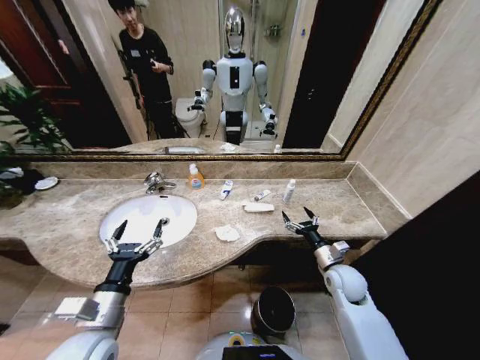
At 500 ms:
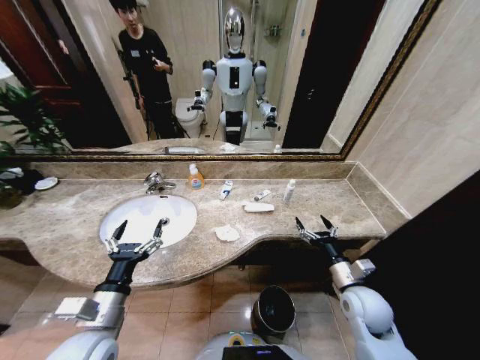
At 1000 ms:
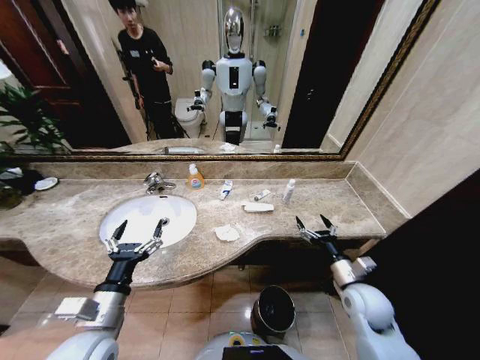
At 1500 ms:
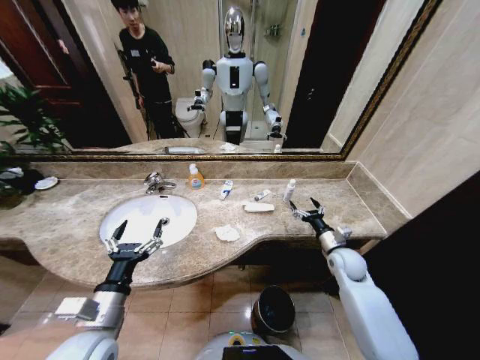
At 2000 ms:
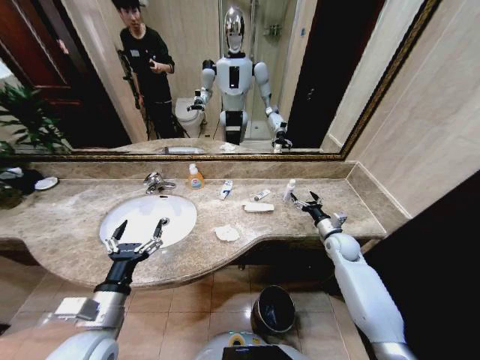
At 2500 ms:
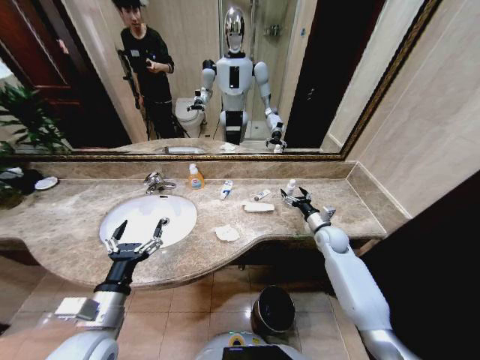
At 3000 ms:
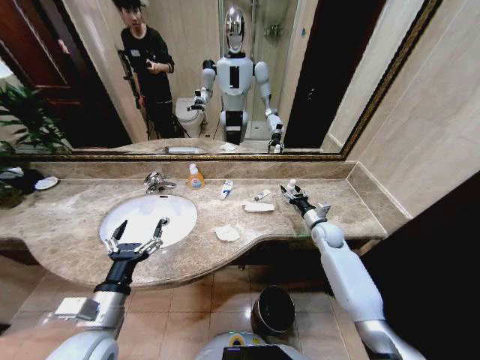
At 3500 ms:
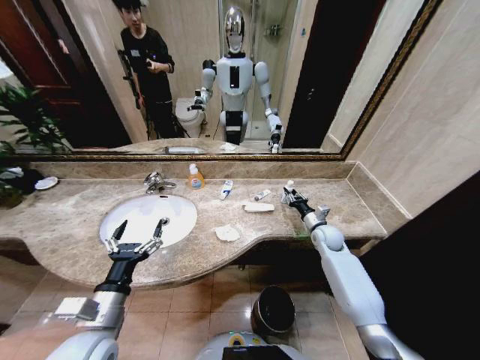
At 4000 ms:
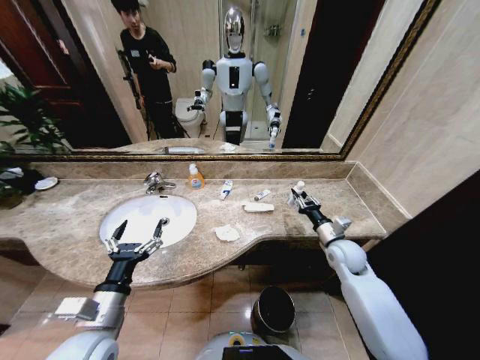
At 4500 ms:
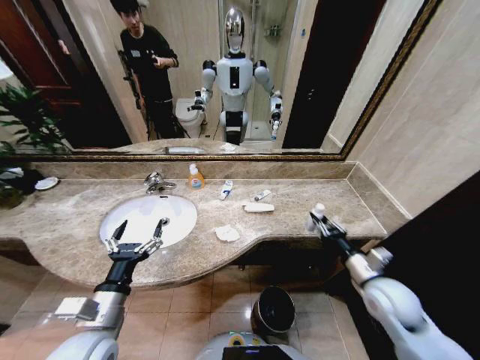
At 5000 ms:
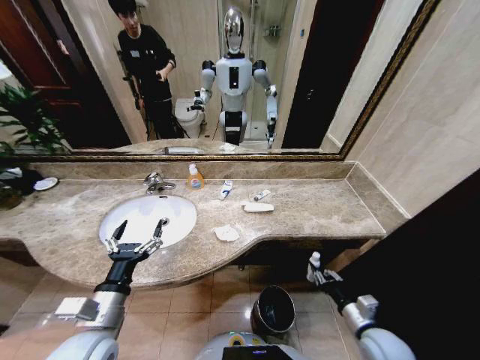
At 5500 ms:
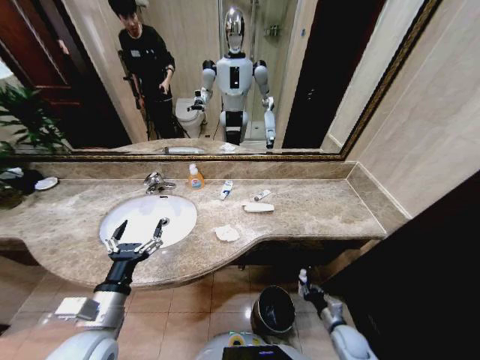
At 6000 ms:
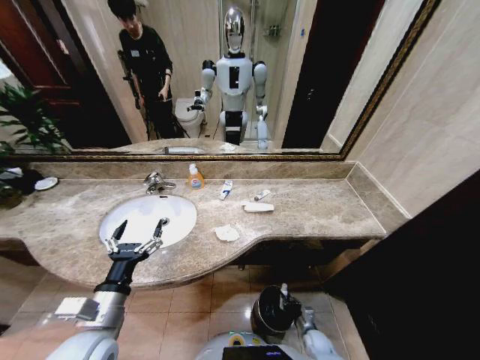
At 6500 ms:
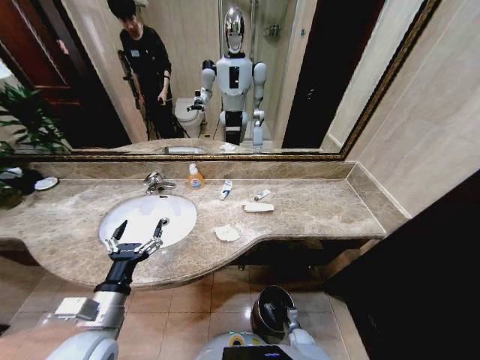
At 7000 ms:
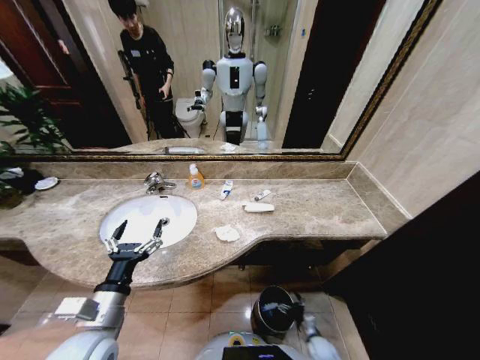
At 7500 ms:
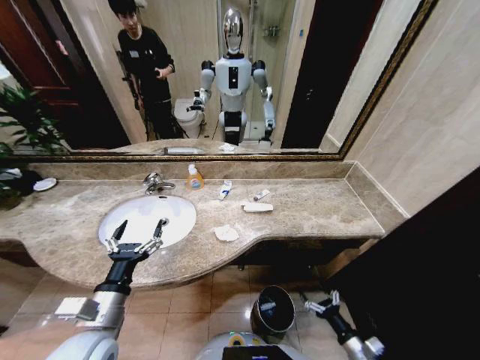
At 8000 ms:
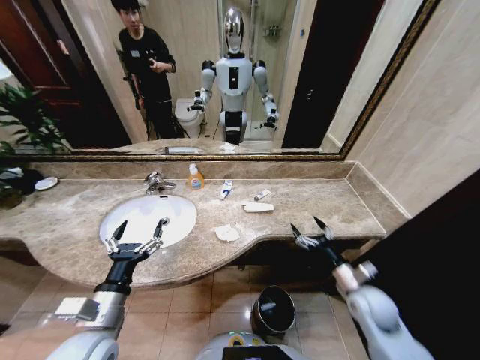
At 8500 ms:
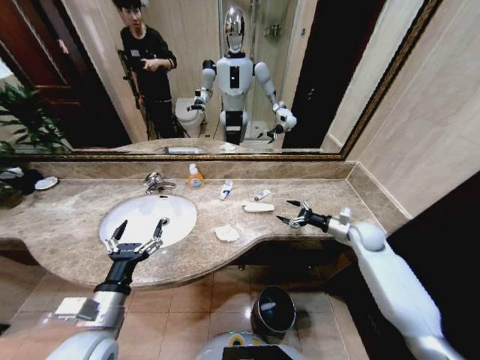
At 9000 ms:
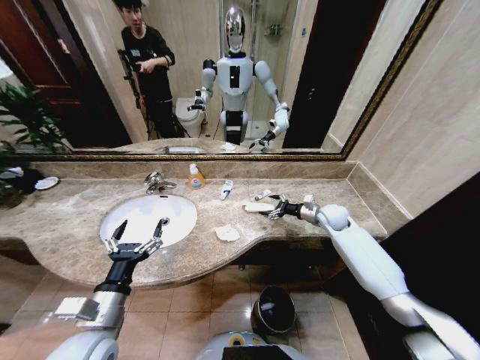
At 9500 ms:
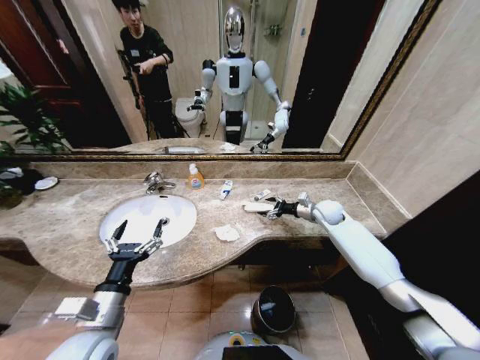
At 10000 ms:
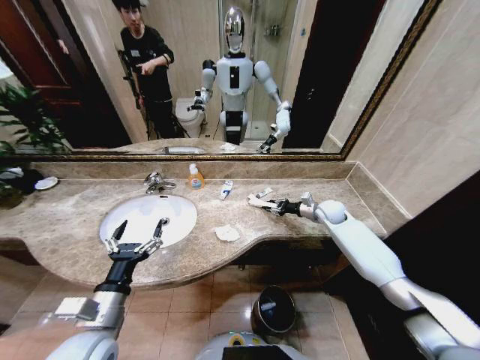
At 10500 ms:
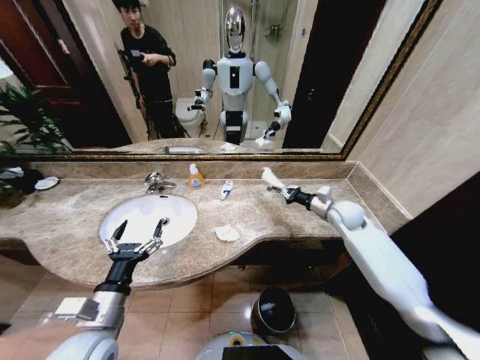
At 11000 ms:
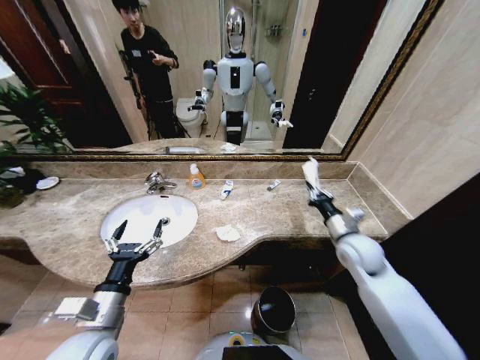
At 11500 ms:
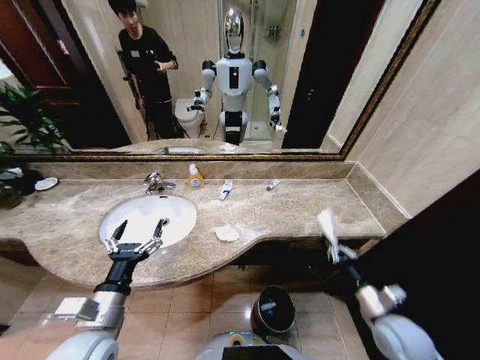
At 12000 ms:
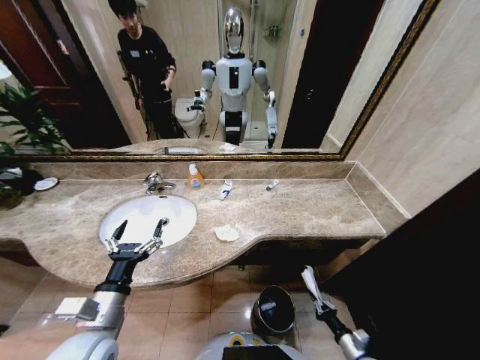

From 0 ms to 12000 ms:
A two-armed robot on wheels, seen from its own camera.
Task of the whole recording: Pick up the trash from the sink and place it in the trash bin.
From 2000 ms to 4000 ms: The right gripper moves some 10 cm, and closes up.
From 4000 ms to 6000 ms: The right gripper travels downward and backward by about 40 cm.
From 6000 ms to 8000 ms: The right gripper shifts about 35 cm upward, and opens.
From 8000 ms to 10000 ms: The right gripper heads forward, covering approximately 30 cm, and closes up.
From 10000 ms to 12000 ms: The right gripper goes roughly 50 cm backward and downward, and closes its fingers.

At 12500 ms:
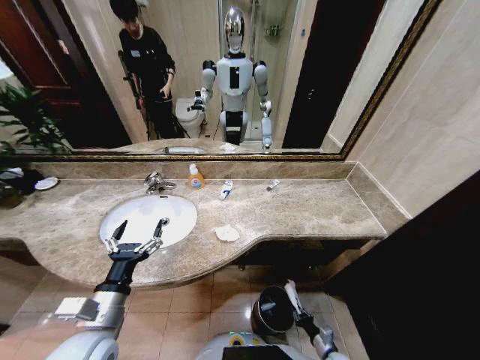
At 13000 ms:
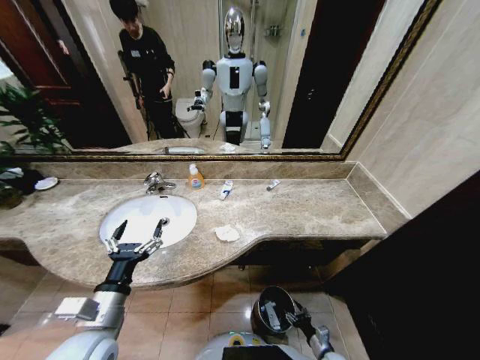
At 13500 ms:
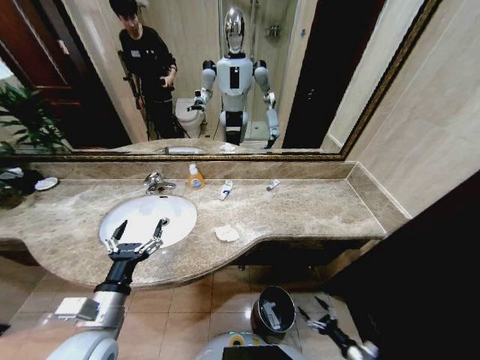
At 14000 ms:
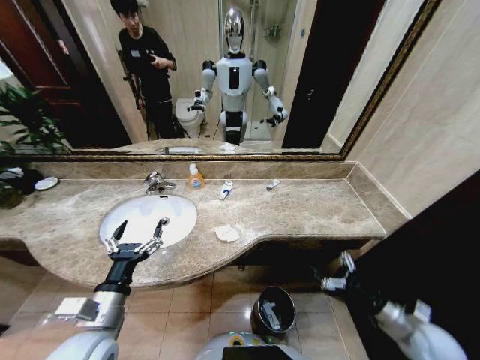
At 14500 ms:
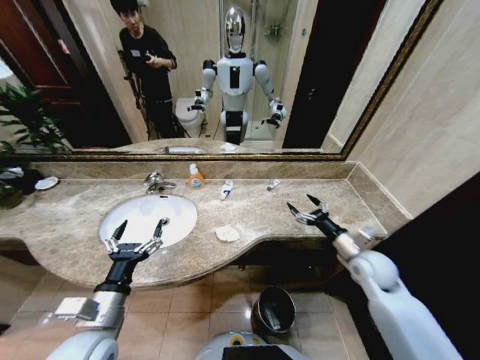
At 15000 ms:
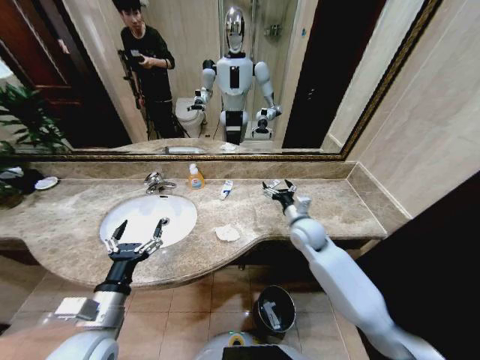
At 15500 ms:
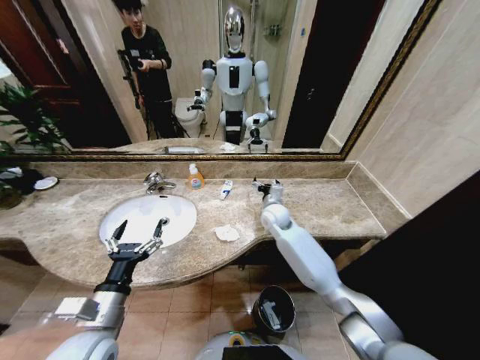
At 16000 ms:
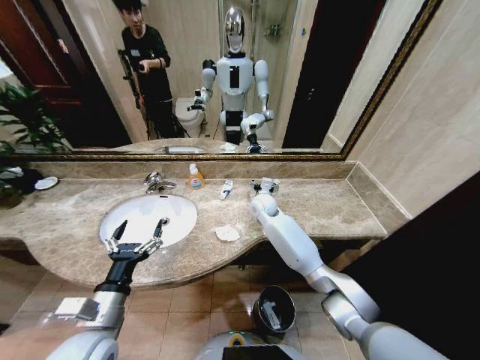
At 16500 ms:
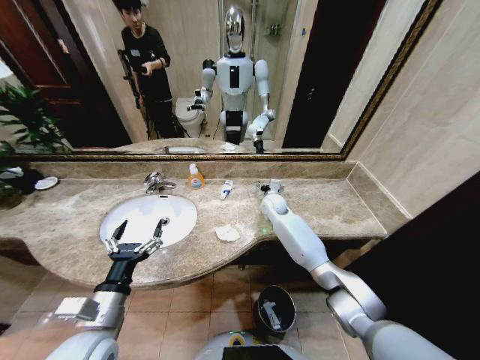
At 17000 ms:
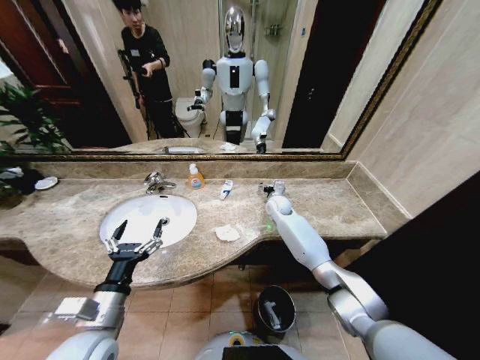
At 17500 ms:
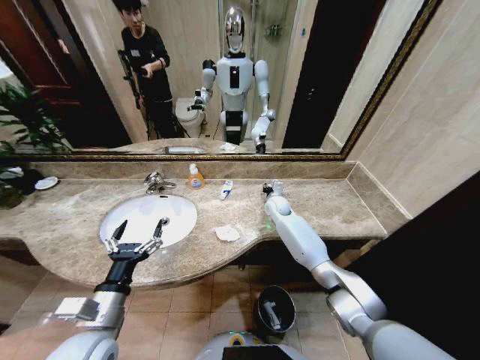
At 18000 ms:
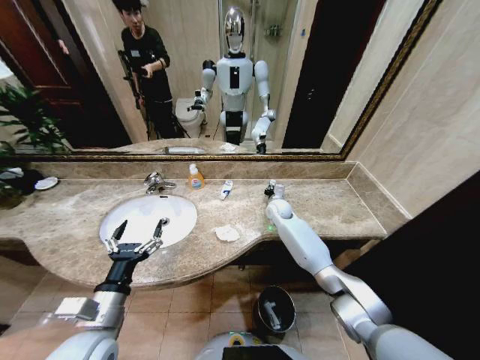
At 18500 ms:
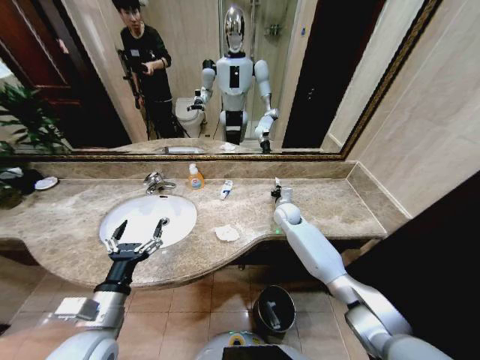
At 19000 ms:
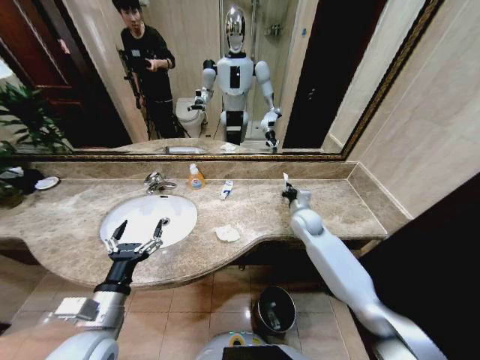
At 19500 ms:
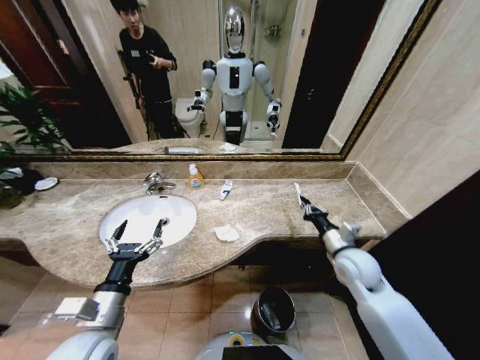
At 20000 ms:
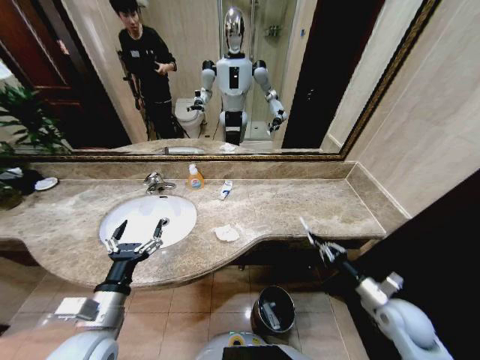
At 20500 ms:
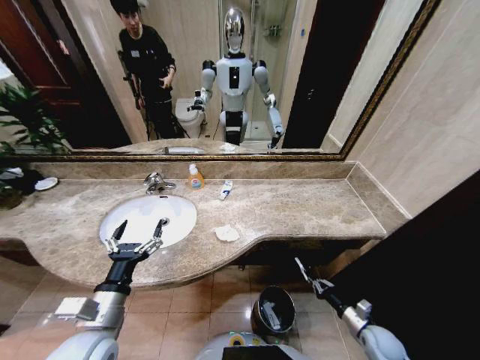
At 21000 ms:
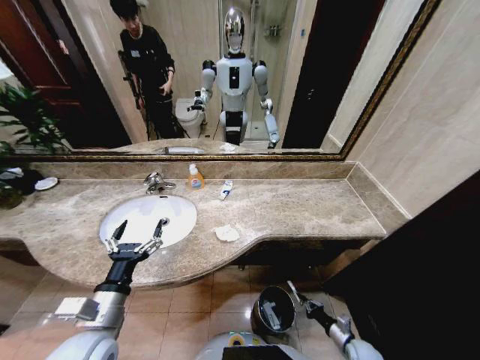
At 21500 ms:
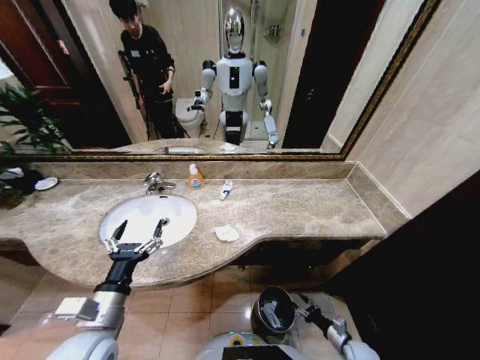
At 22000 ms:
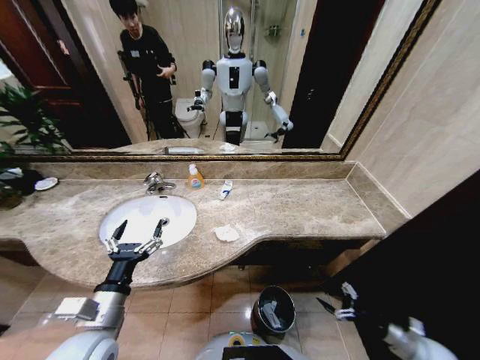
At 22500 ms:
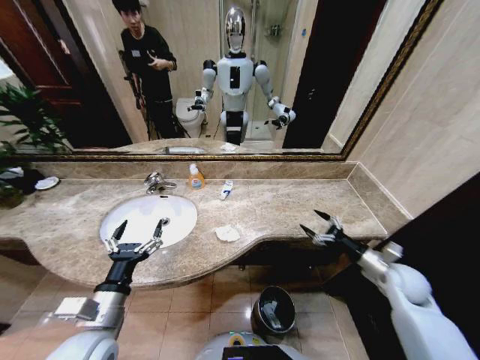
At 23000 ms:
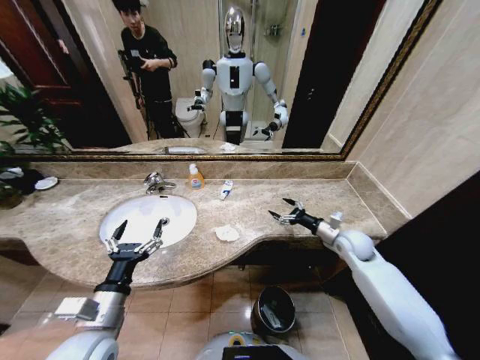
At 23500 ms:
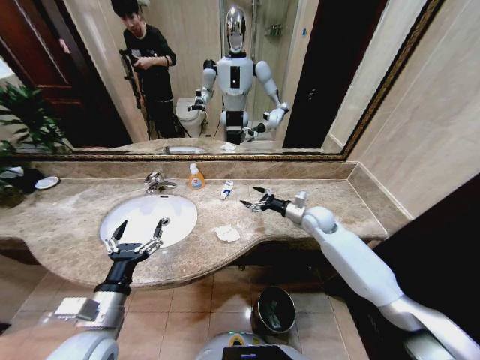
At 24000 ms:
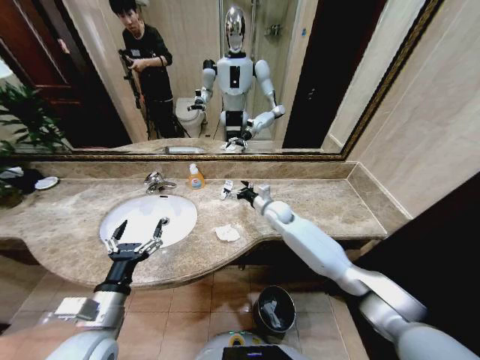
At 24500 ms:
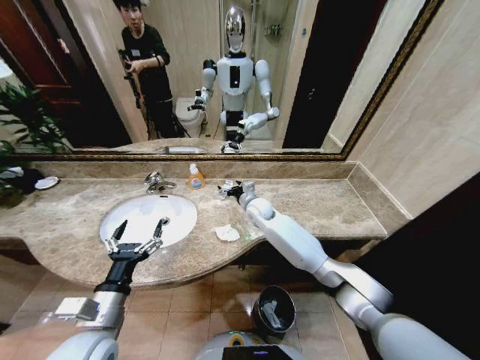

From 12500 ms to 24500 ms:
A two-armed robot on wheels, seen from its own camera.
Task of the whole recording: Pick up the trash from the sink and place it in the trash bin.
From 12500 ms to 14500 ms: The right gripper travels upward and forward by some 40 cm, and opens its fingers.
From 14500 ms to 16500 ms: The right gripper goes approximately 30 cm forward and to the left.
From 16500 ms to 18500 ms: The right gripper shifts by approximately 5 cm, and closes.
From 18500 ms to 20500 ms: The right gripper travels backward, to the right and downward by about 50 cm.
From 20500 ms to 22500 ms: The right gripper travels upward and forward by roughly 25 cm, and opens its fingers.
From 22500 ms to 24500 ms: The right gripper goes roughly 40 cm to the left and forward.

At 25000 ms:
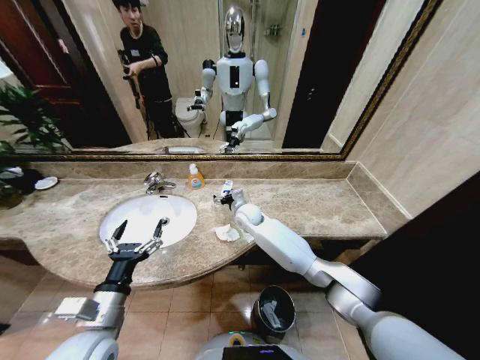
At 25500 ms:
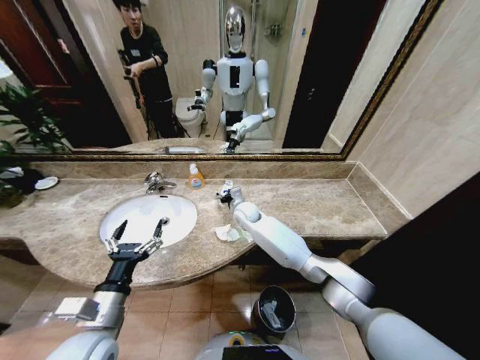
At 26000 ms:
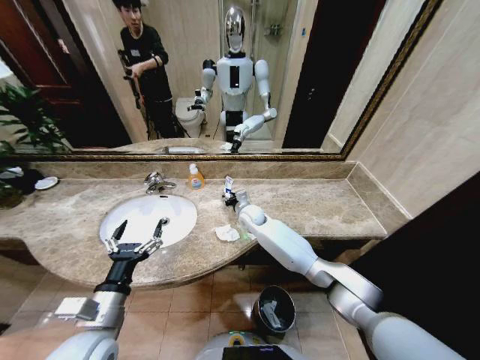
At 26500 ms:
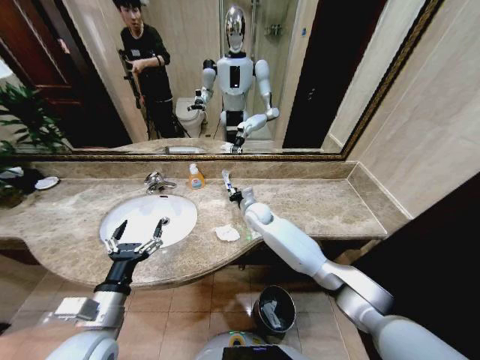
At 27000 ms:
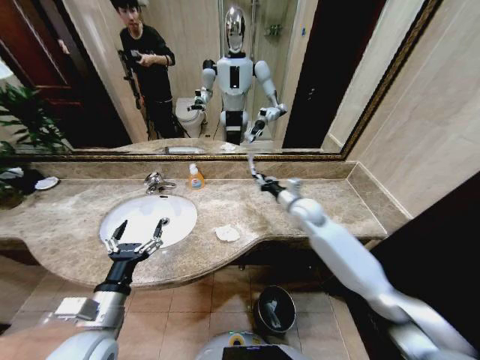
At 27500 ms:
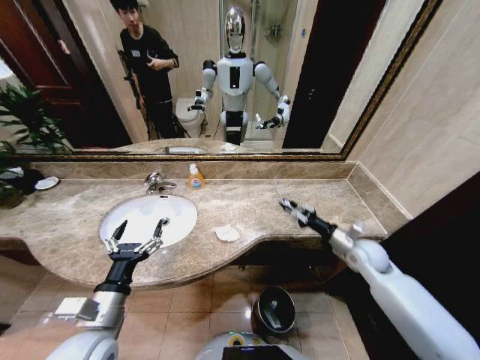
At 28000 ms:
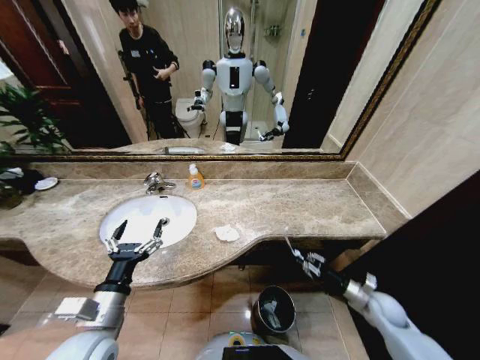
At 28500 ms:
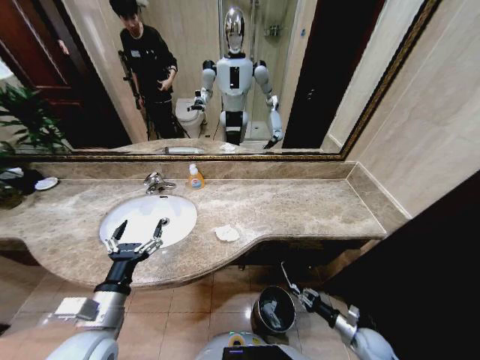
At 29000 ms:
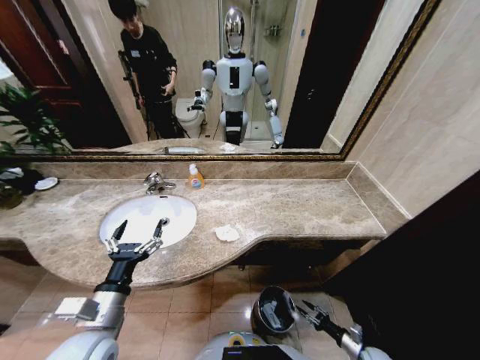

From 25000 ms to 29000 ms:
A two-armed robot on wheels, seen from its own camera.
Task of the whole recording: Pick up the trash from the sink and place it in the trash bin.
From 25000 ms to 27000 ms: The right gripper heads to the right, covering approximately 15 cm, and closes its fingers.
From 27000 ms to 29000 ms: The right gripper is displaced downward, backward and to the right by about 60 cm.
